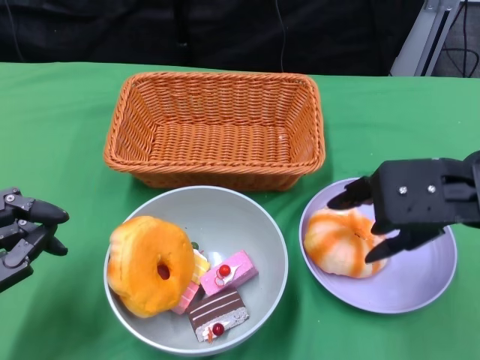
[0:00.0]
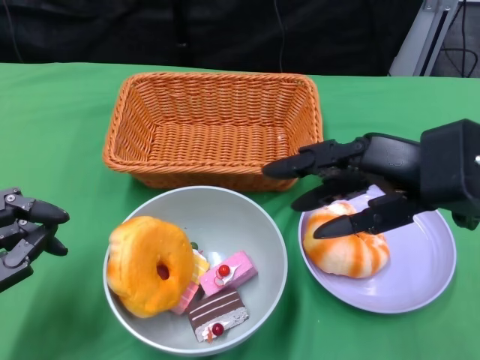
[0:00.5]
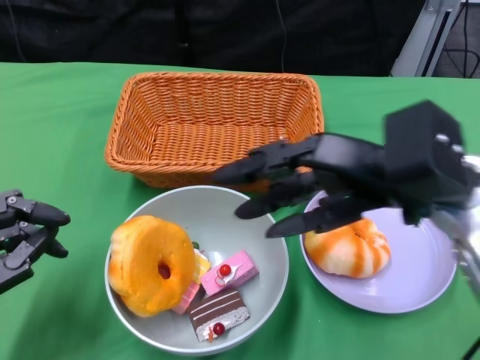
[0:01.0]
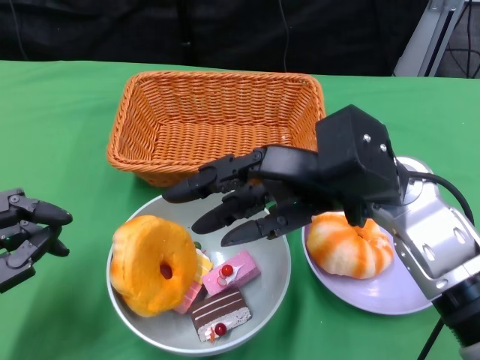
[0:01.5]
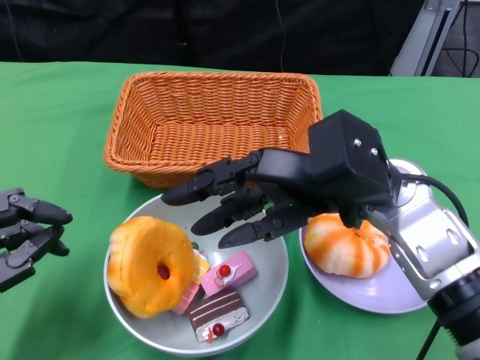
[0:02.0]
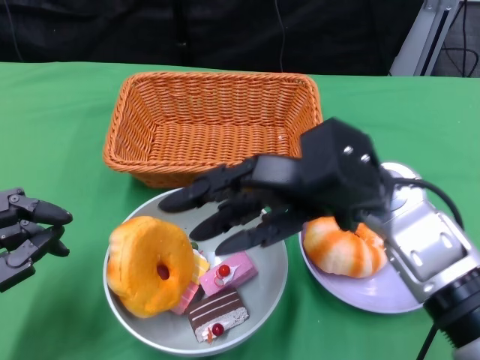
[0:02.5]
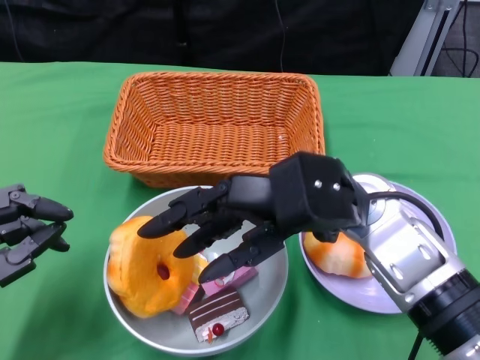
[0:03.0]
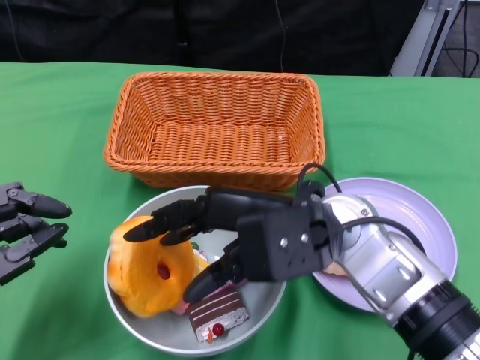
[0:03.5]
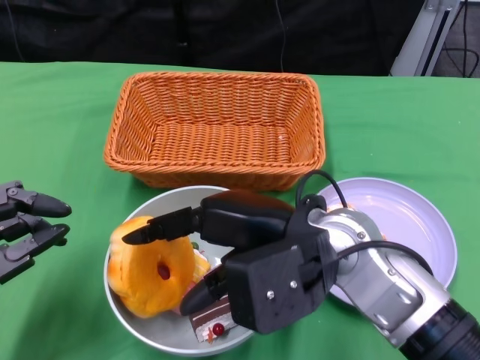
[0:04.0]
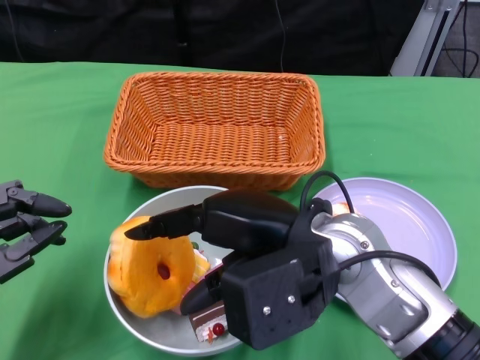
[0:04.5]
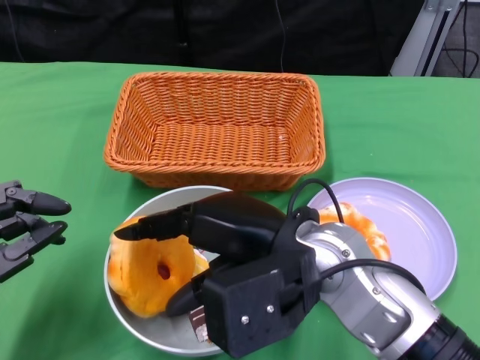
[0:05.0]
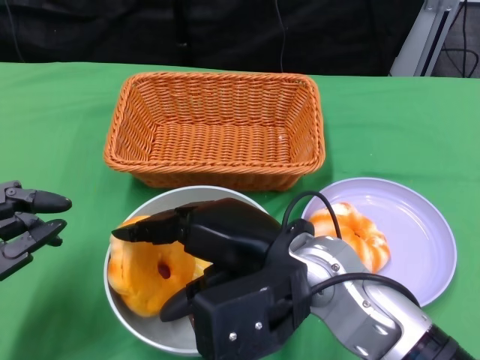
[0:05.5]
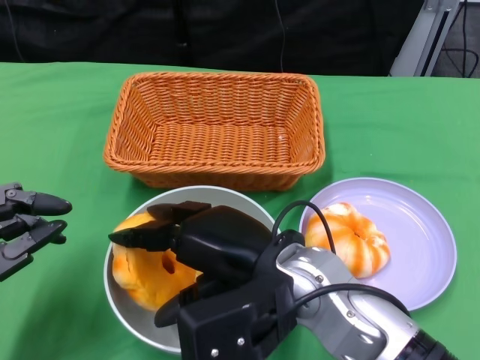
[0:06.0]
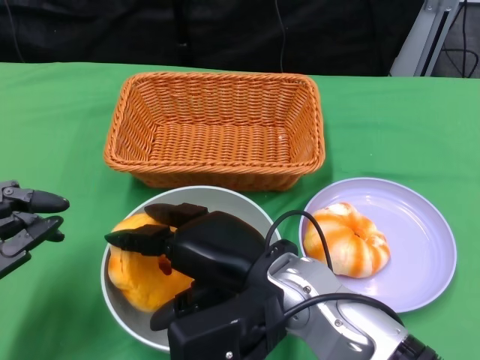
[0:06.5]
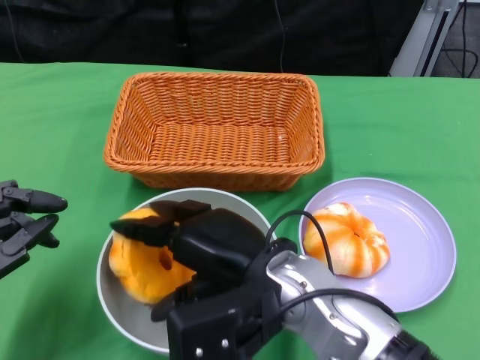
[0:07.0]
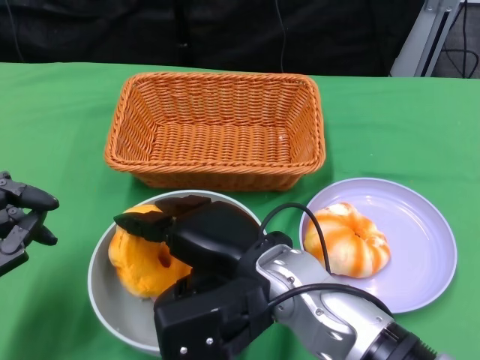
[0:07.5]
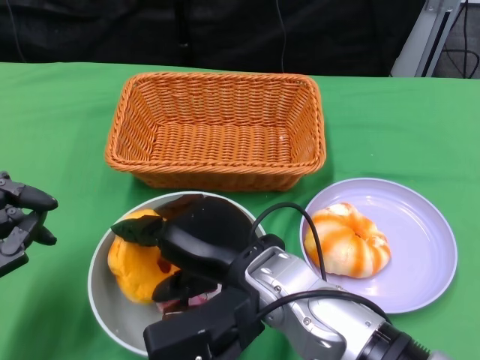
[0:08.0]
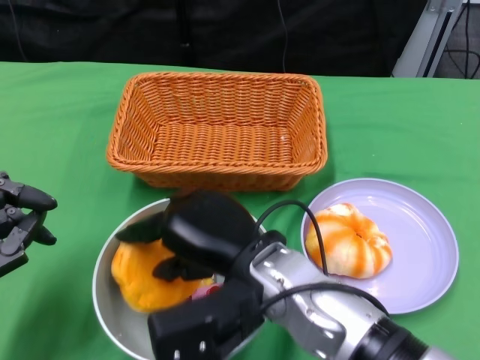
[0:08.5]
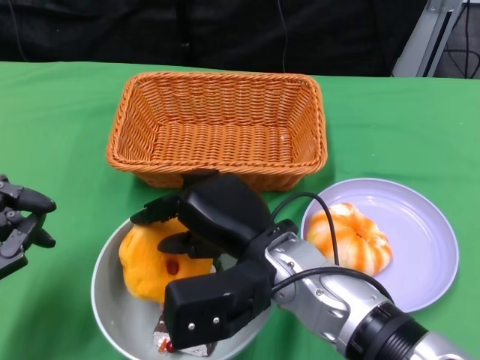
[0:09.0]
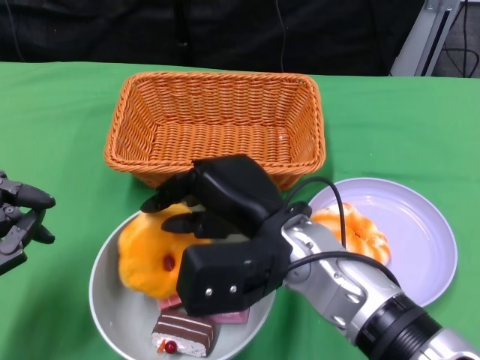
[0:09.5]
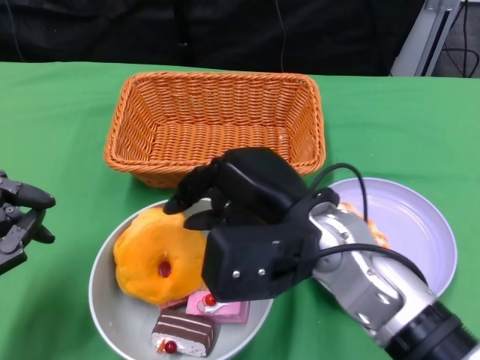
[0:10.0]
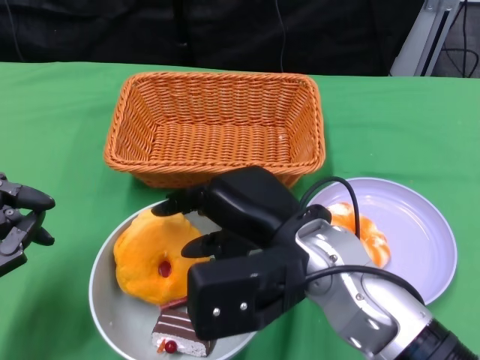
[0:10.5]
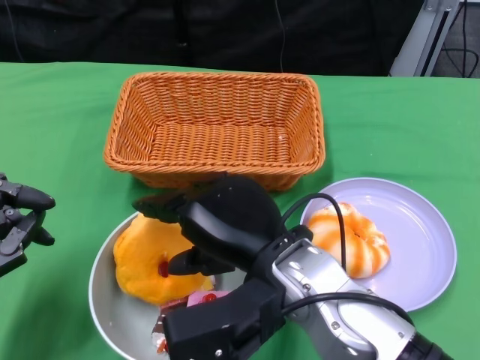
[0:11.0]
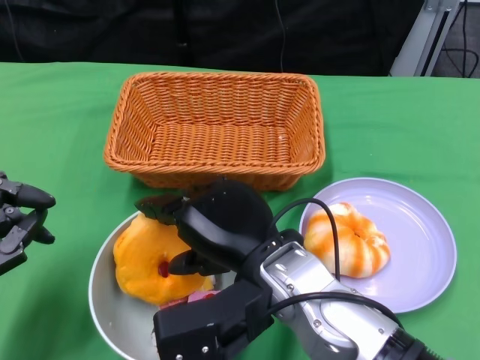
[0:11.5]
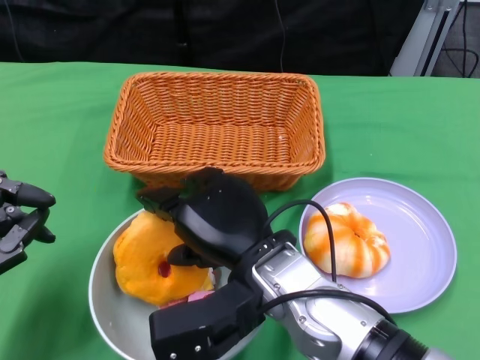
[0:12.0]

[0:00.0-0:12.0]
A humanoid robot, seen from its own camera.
0:00.0 to 0:02.0: The right hand is displaced to the left by about 10 cm.
0:02.0 to 0:04.0: The right hand moves approximately 5 cm.
0:06.0 to 0:08.0: There are only small adjustments of the hands.
0:08.0 to 0:10.0: The right hand shifts by about 5 cm.
0:10.0 to 0:12.0: The right hand shifts by roughly 5 cm.

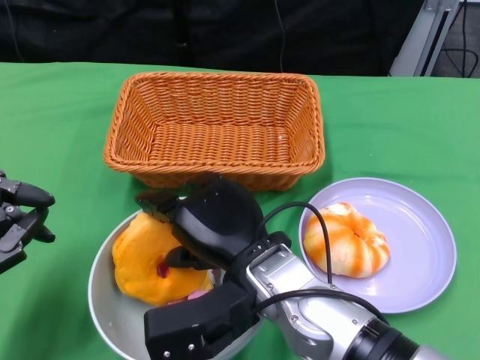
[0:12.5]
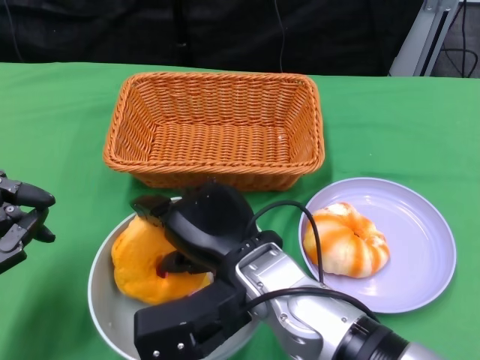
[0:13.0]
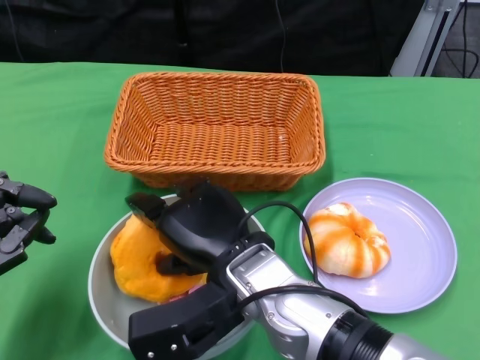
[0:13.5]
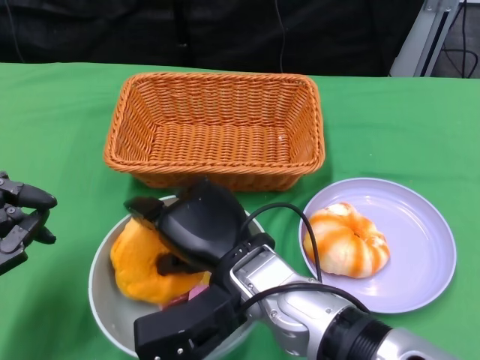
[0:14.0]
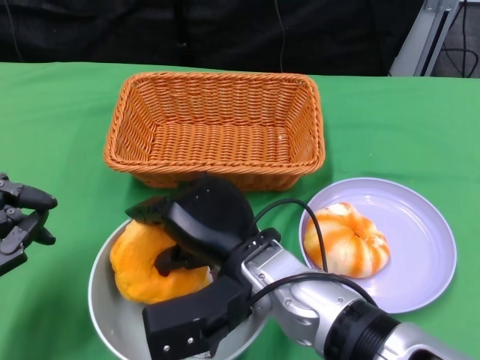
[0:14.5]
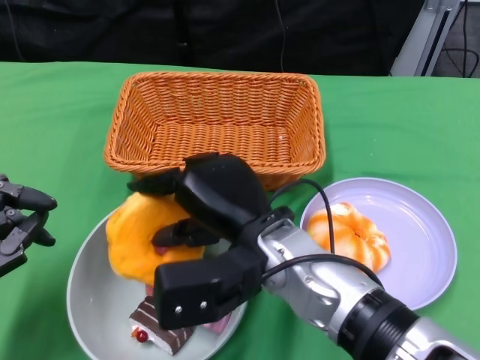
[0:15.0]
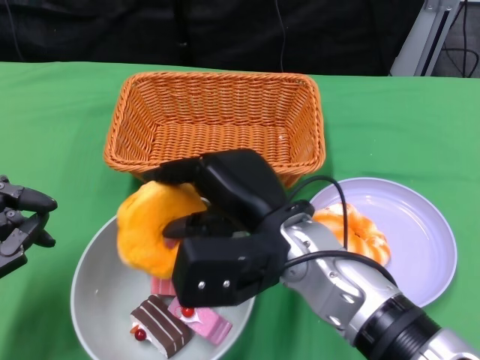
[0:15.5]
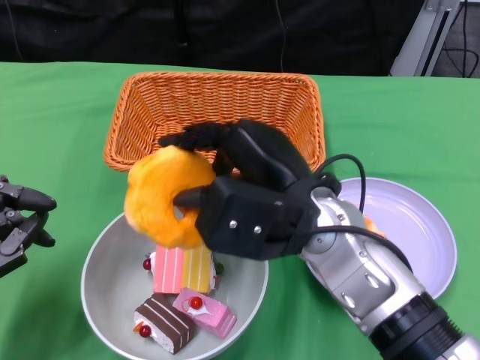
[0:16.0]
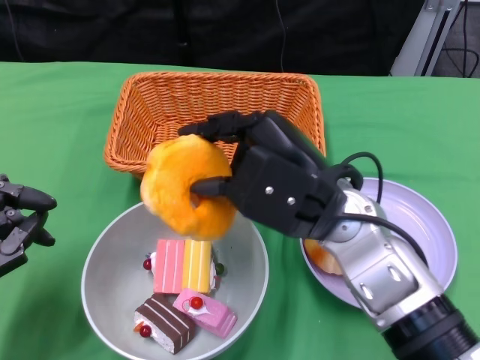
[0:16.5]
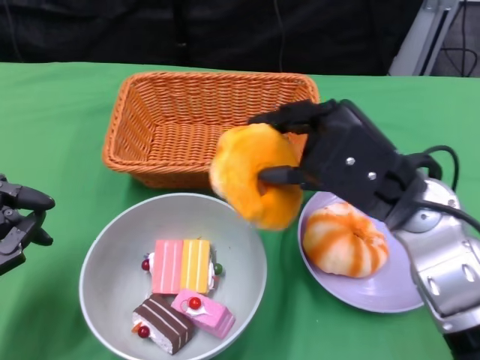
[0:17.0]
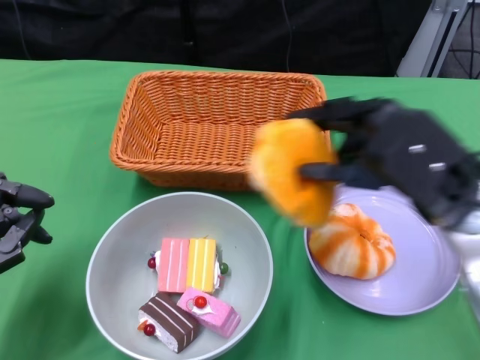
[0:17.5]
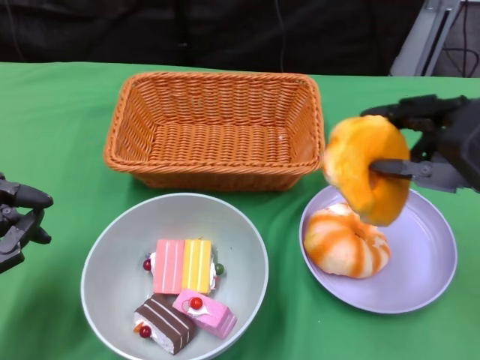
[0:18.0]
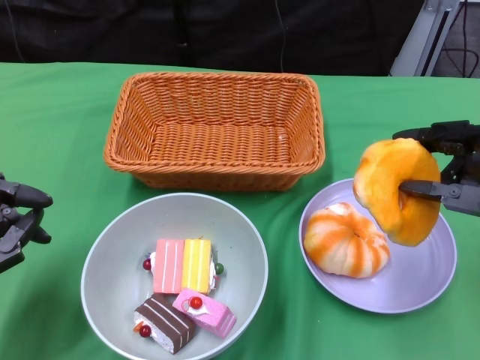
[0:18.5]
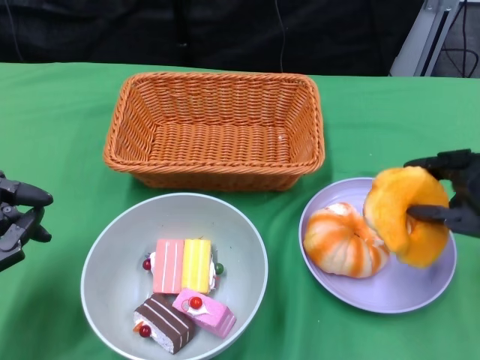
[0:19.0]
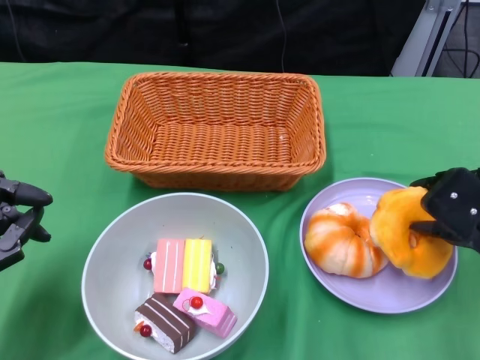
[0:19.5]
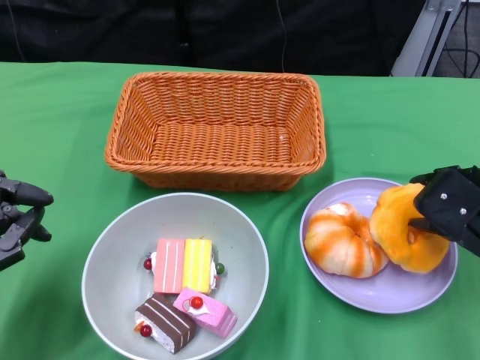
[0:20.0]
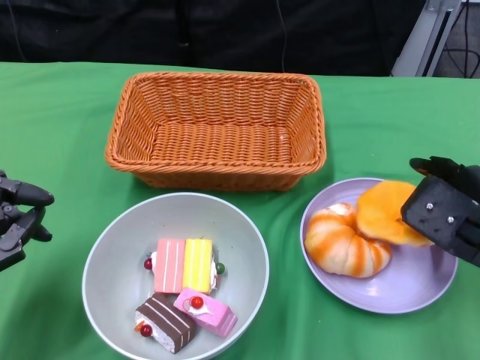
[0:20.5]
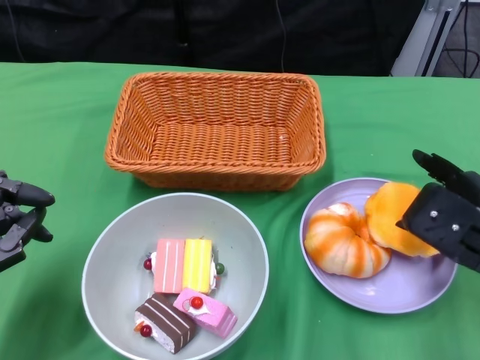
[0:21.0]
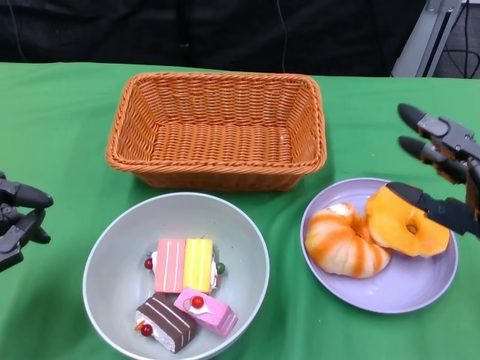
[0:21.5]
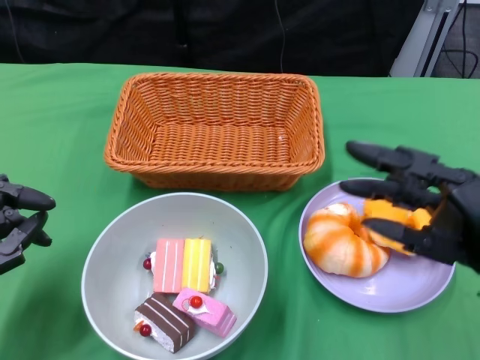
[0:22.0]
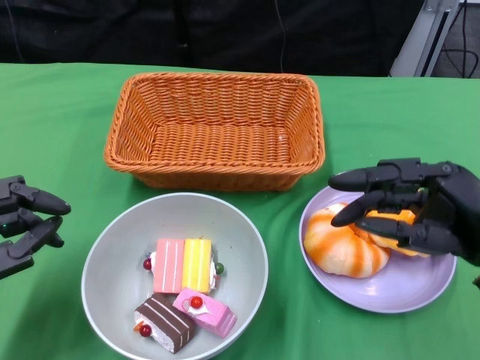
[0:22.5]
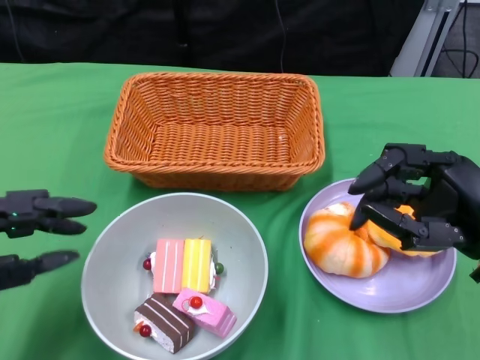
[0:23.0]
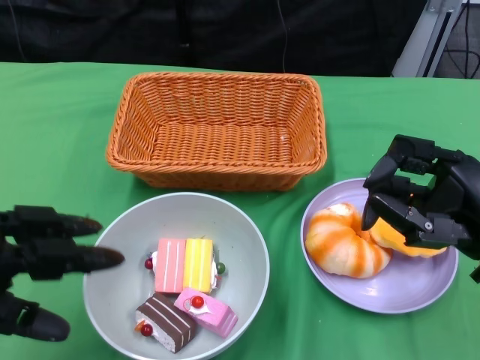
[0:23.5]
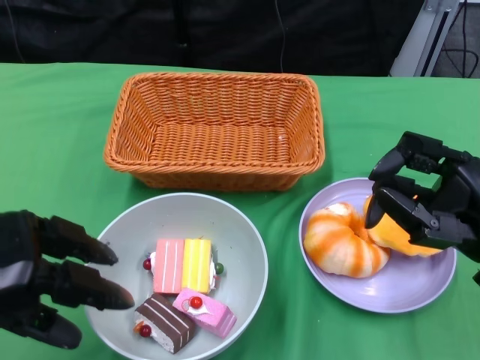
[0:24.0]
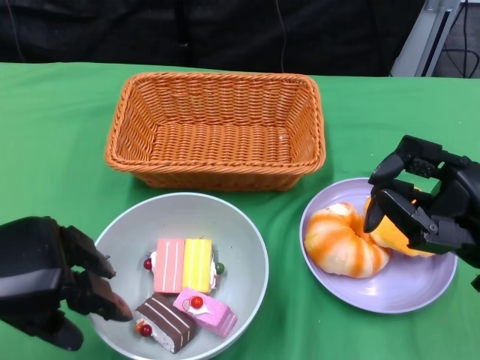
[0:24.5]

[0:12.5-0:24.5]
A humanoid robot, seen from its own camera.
Step, 0:12.5 to 0:21.0: Pick up the bread with the right gripper and place it on the plate.
0:12.5 to 0:14.5: The hands stay close to where they were, moving slightly.
0:14.5 to 0:16.5: The right hand shifts some 10 cm to the right and upward.
0:16.5 to 0:18.5: The right hand moves to the right, about 20 cm.
0:18.5 to 0:20.5: The right hand heads downward, covering some 5 cm.
0:22.5 to 0:24.5: The left hand travels upward by about 5 cm.

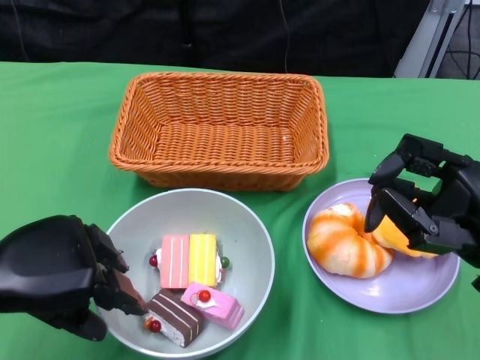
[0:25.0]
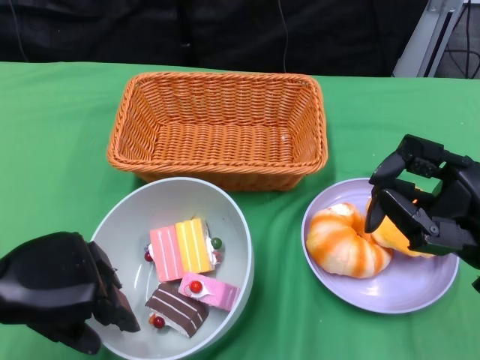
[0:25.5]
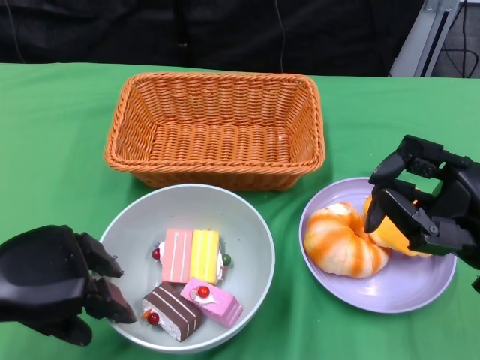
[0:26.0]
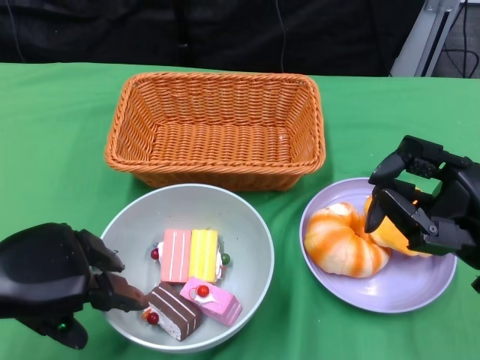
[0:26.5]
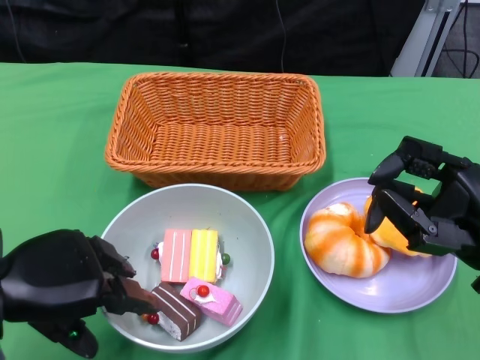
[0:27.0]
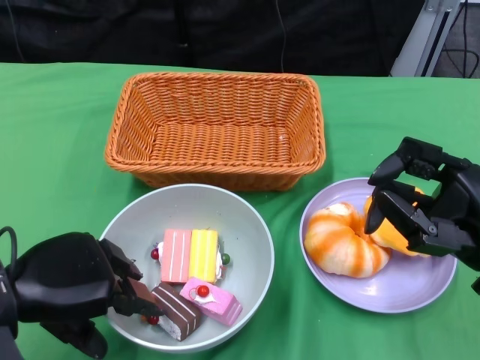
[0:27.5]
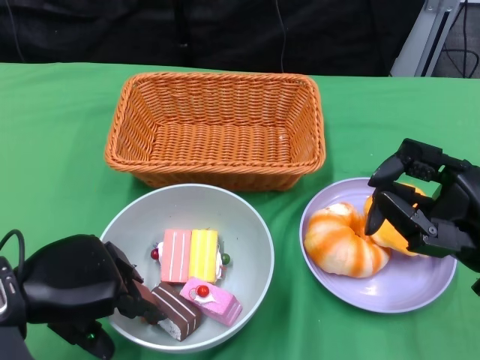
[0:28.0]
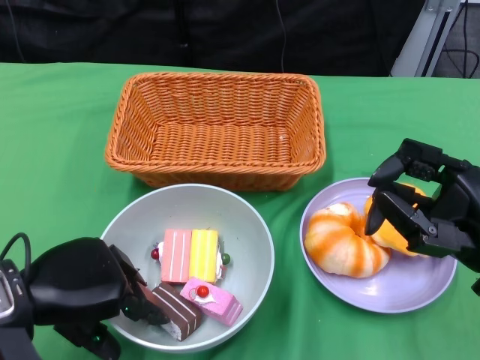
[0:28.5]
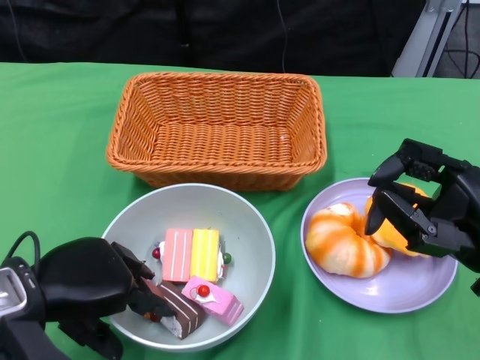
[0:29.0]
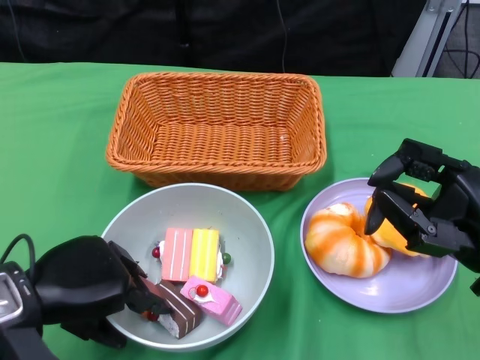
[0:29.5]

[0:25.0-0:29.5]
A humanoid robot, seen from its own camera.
0:25.0 to 0:29.5: The hands stay close to where they were, moving slightly.
